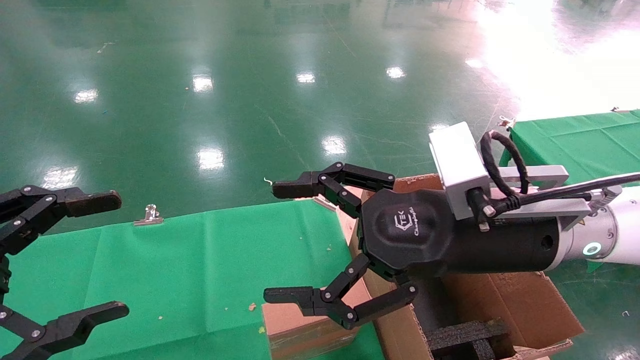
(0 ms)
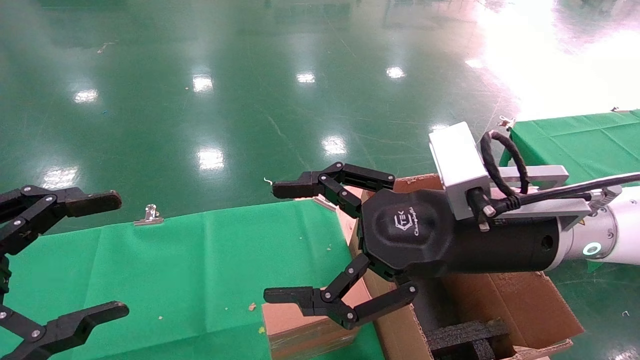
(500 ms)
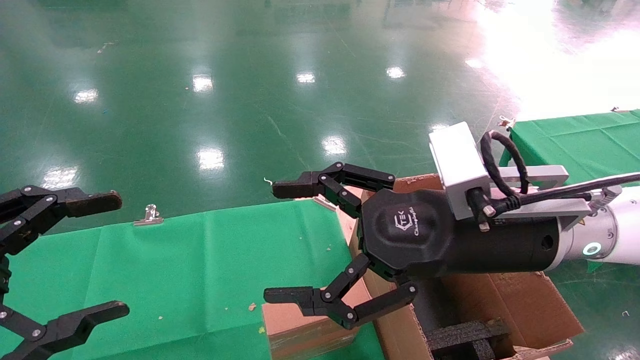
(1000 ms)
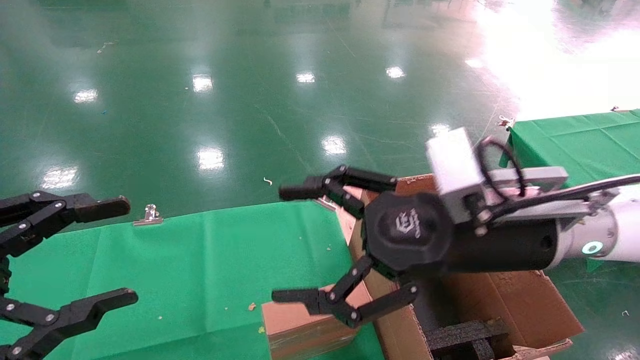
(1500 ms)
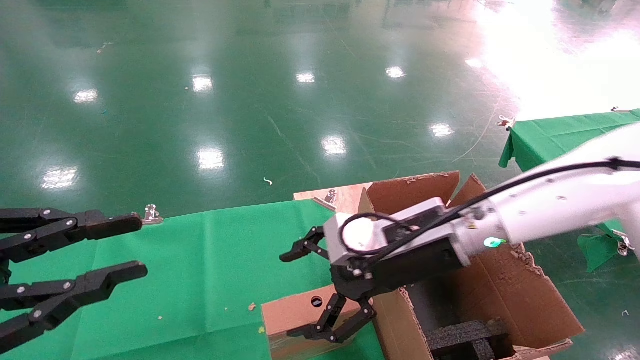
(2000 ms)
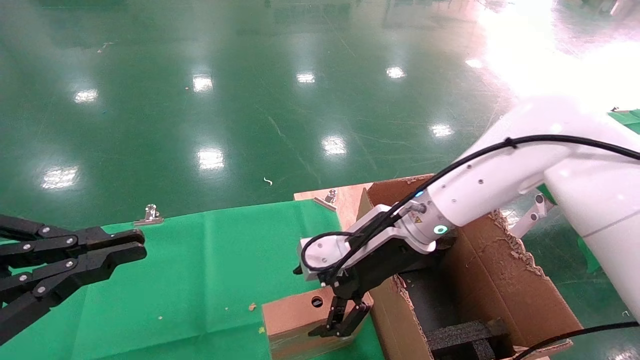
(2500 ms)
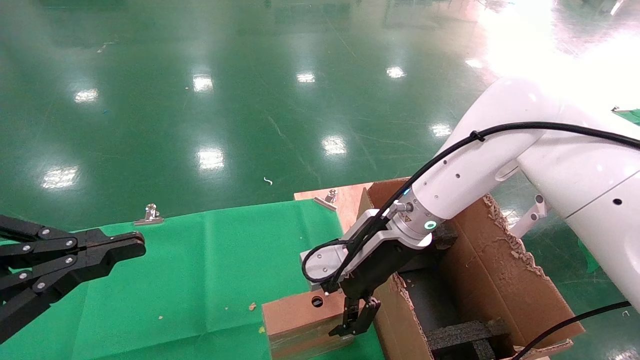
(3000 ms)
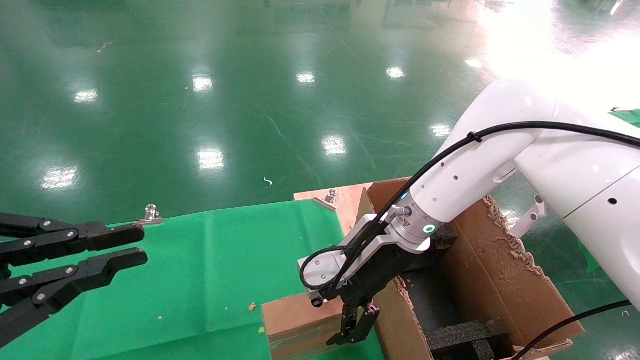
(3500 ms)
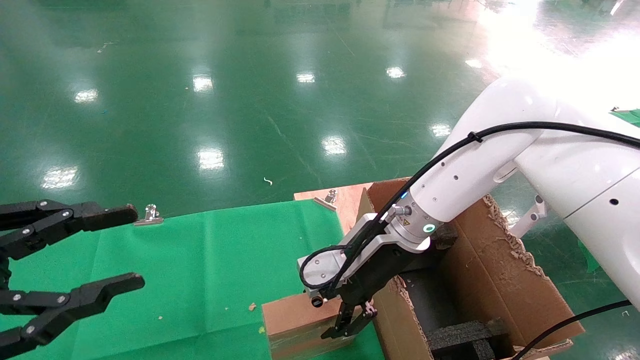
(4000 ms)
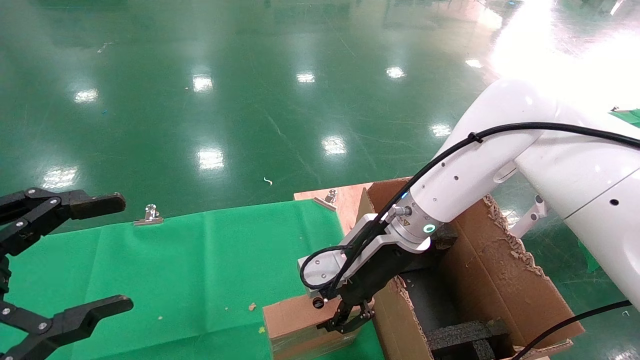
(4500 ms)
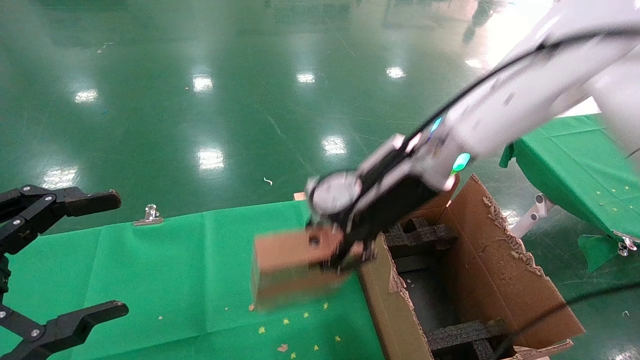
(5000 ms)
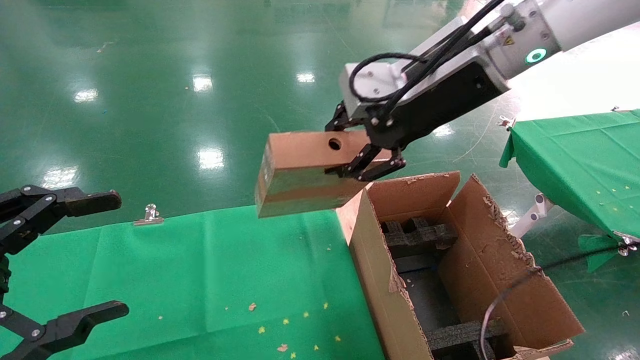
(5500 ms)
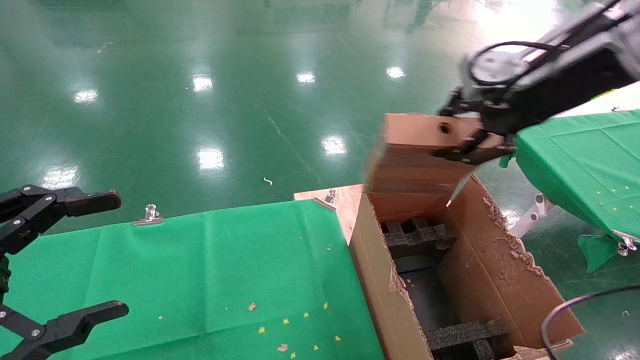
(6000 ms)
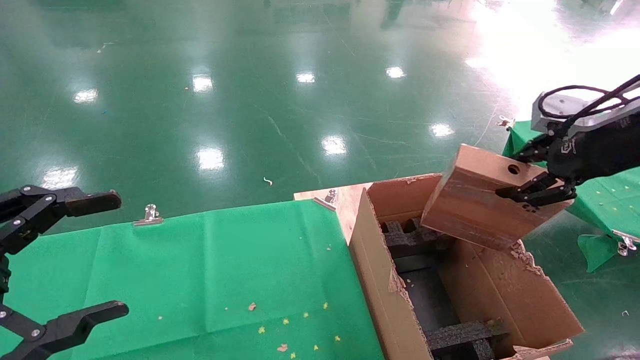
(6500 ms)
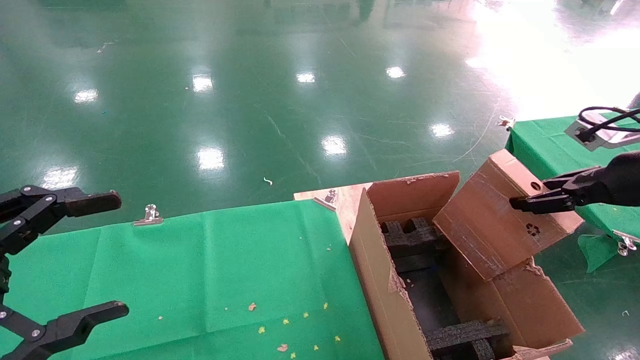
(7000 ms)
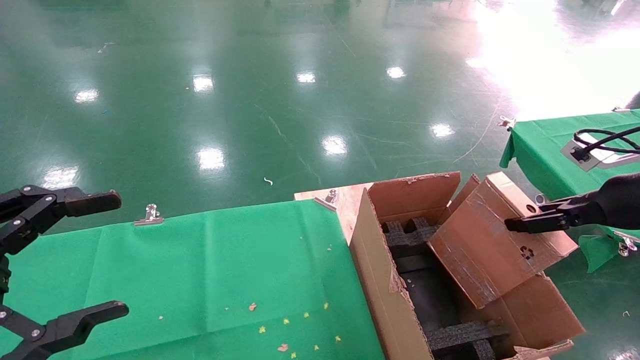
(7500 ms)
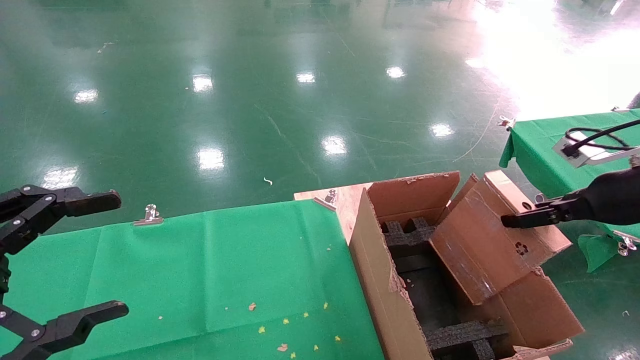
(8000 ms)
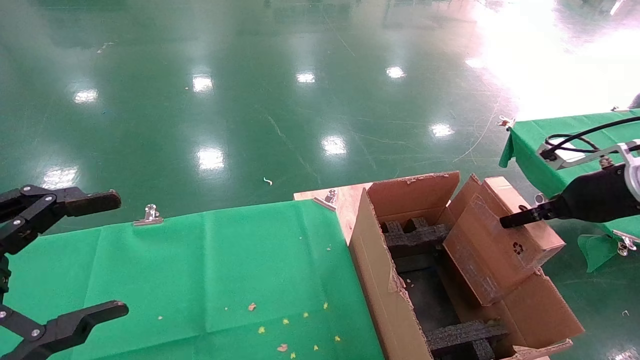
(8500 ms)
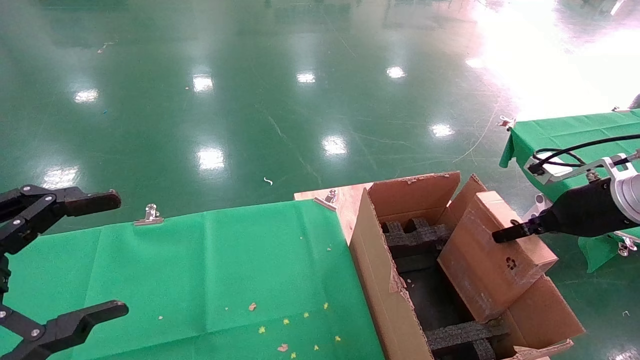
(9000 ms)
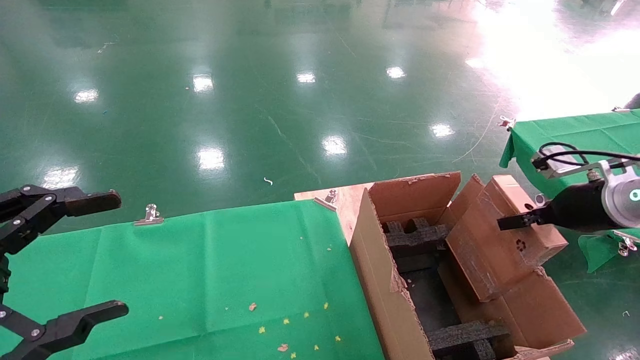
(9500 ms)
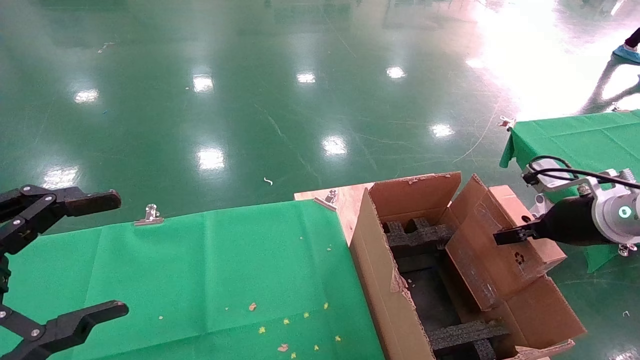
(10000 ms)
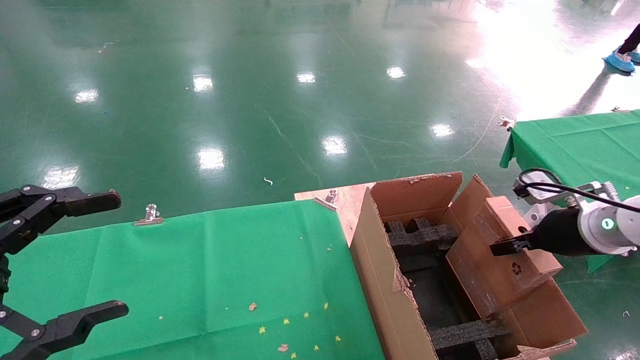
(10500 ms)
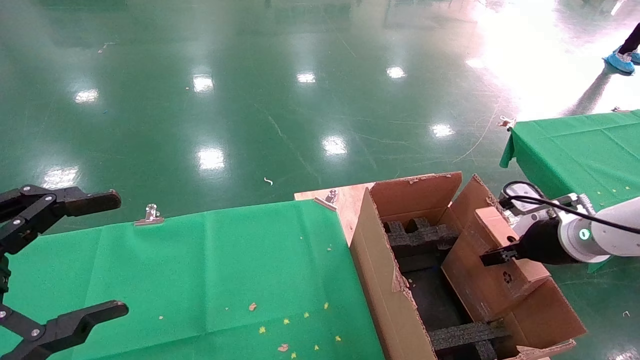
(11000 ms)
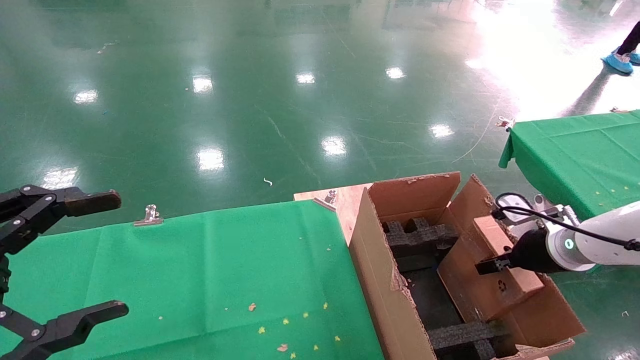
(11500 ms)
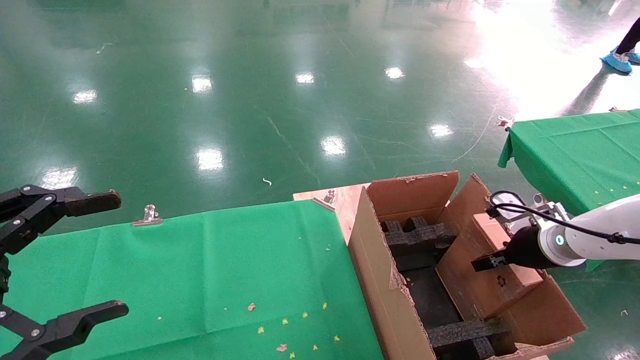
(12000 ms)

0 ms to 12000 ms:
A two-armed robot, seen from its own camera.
Task of the whole recording: using a robotic arm to pick up a cardboard box and palace it the carton.
Step, 1500 ms to 4500 ms: Pick up the mouse and the power cord paper box.
0 ms to 2000 ms: The left gripper closes. The right gripper is displaced forward and downward by about 10 cm.
2000 ms to 4000 ms: The left gripper closes, then reopens; the right gripper ends up roughly 5 cm from where it was.
4000 ms to 6000 ms: The left gripper opens its fingers, while the right gripper moves upward and to the right, roughly 30 cm, and closes.
6000 ms to 8000 ms: The right gripper shifts about 20 cm to the right and downward.
8000 ms to 10000 ms: The right gripper changes place by some 5 cm.
10000 ms to 12000 ms: The right gripper is displaced downward and forward by some 10 cm.

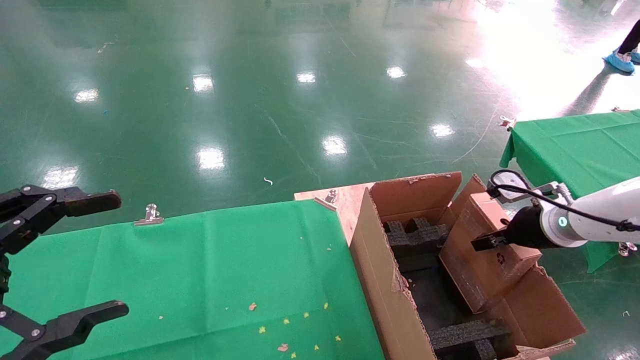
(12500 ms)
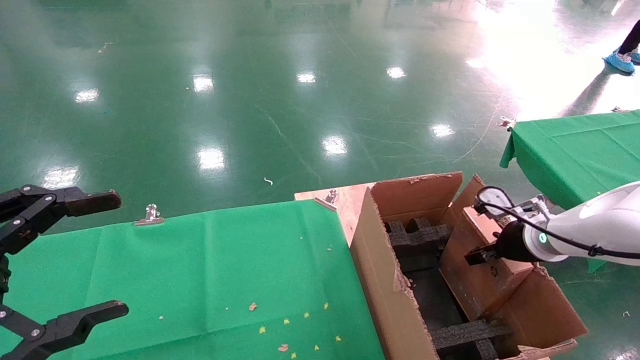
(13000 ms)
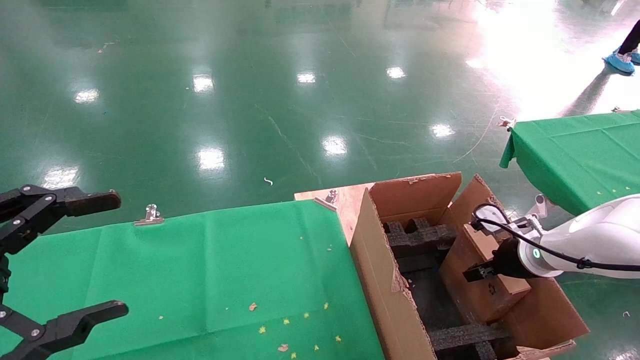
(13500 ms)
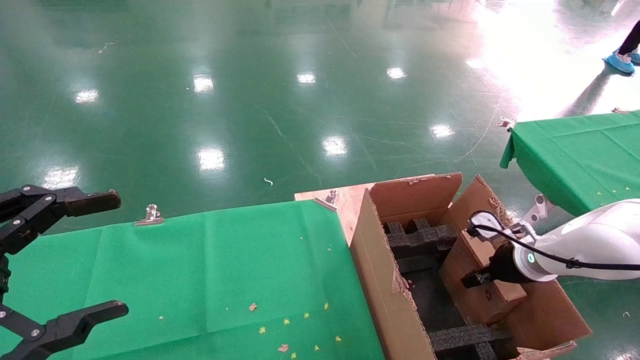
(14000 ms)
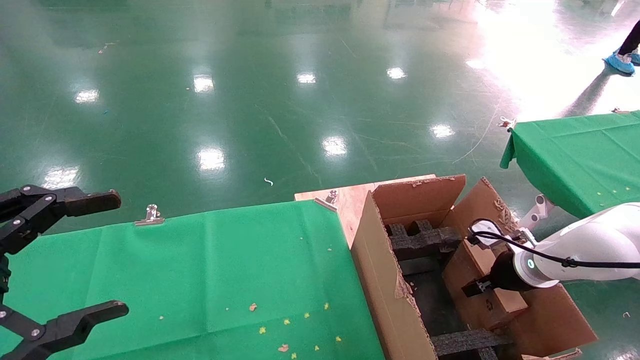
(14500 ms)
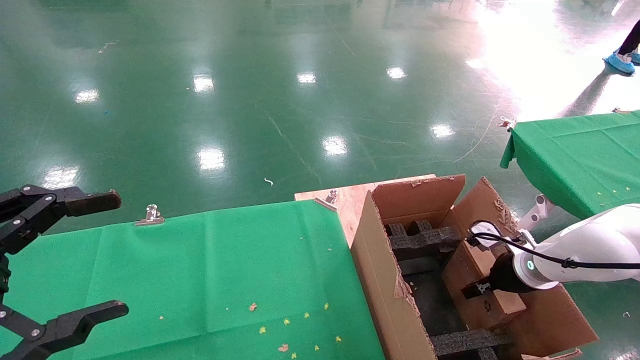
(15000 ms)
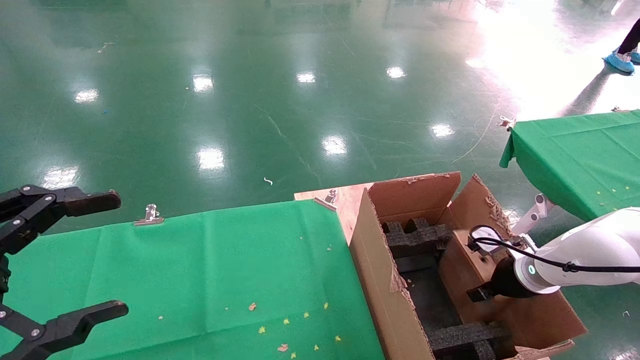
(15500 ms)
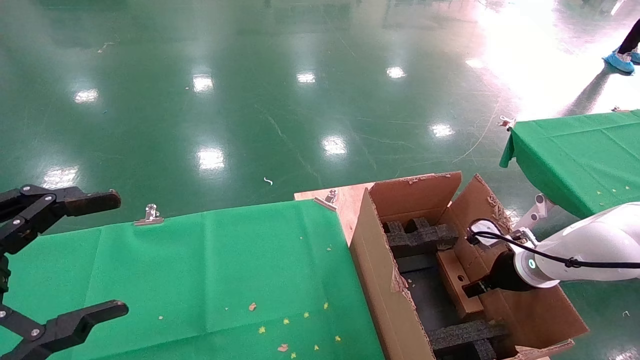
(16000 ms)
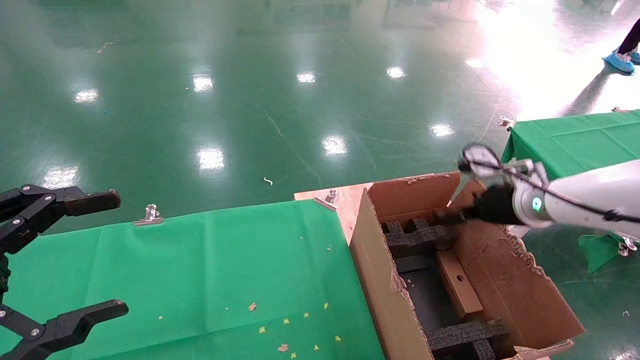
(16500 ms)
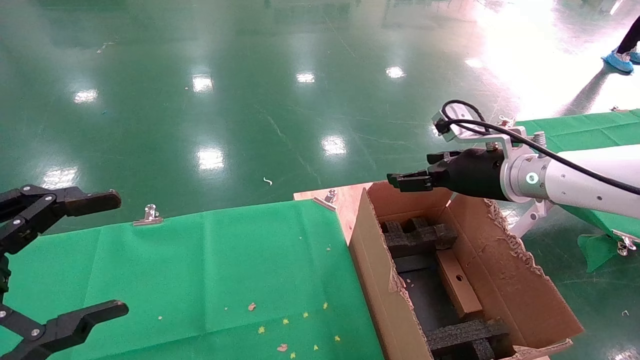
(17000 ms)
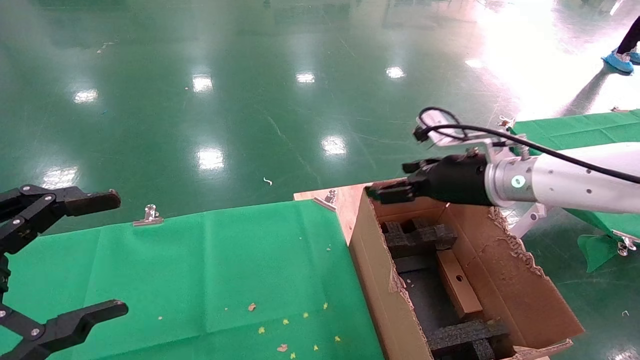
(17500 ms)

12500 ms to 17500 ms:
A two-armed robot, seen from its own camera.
Task of the whole recording: using a robotic arm to pick up a cardboard box and palace it the carton.
Step, 12500 ms to 16500 ms: Place the mouse and the power cord paper box into the container.
12500 ms to 15000 ms: The right gripper heads downward, covering some 10 cm.
15000 ms to 17500 ms: The right gripper goes about 20 cm upward and to the left, and opens.
